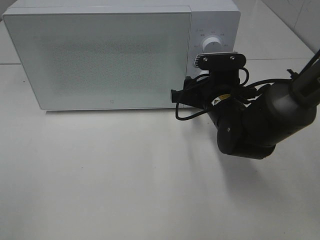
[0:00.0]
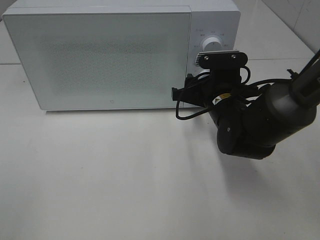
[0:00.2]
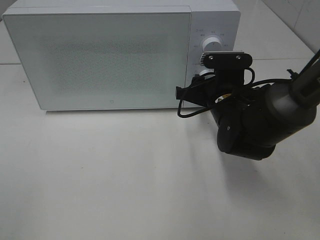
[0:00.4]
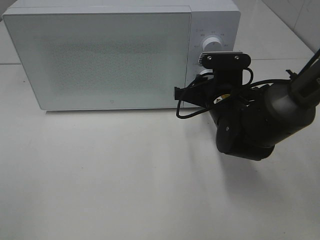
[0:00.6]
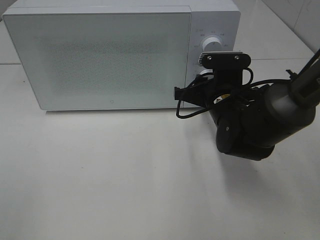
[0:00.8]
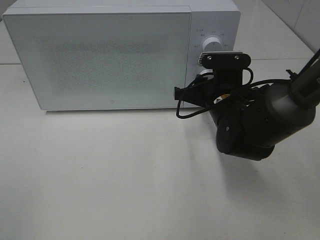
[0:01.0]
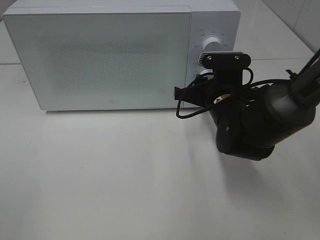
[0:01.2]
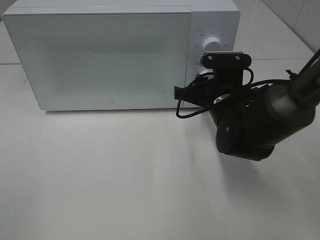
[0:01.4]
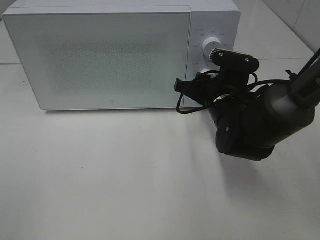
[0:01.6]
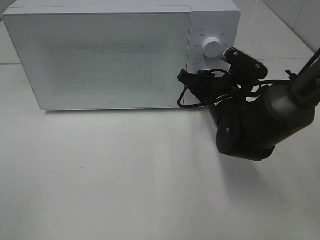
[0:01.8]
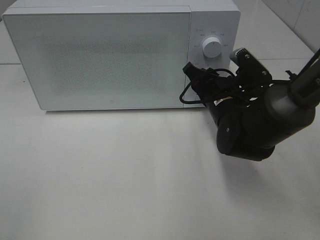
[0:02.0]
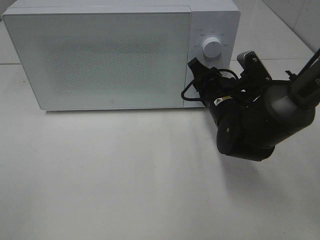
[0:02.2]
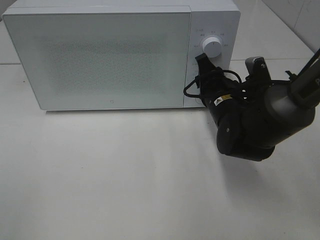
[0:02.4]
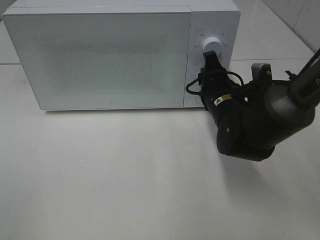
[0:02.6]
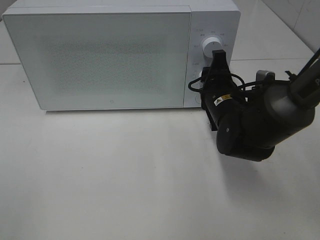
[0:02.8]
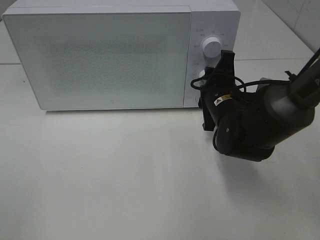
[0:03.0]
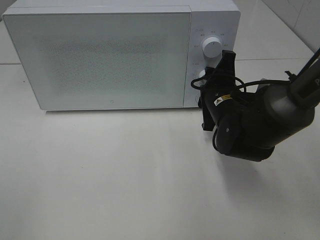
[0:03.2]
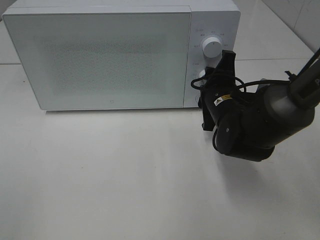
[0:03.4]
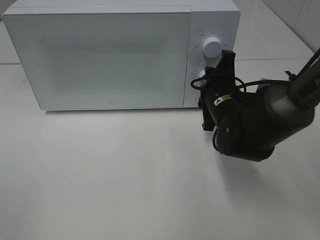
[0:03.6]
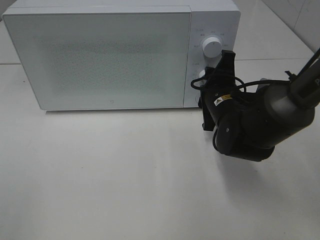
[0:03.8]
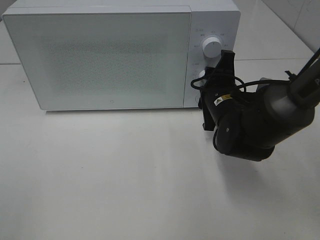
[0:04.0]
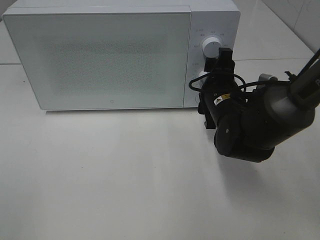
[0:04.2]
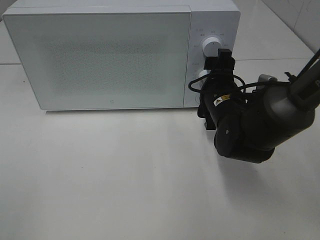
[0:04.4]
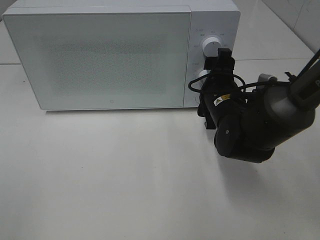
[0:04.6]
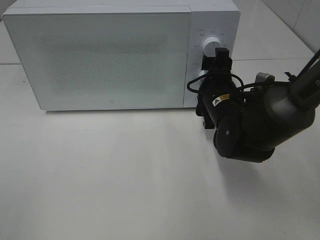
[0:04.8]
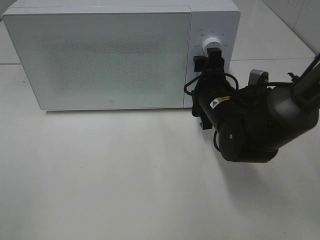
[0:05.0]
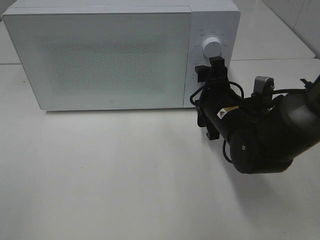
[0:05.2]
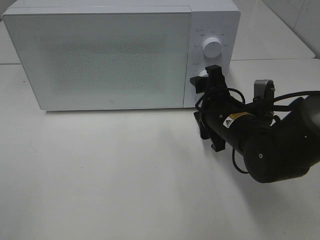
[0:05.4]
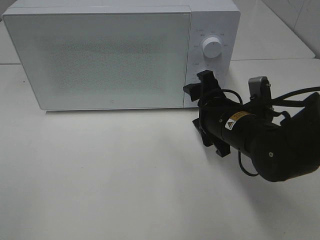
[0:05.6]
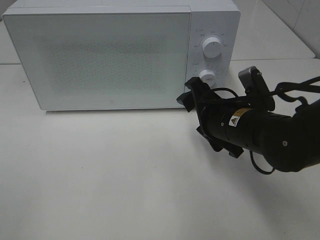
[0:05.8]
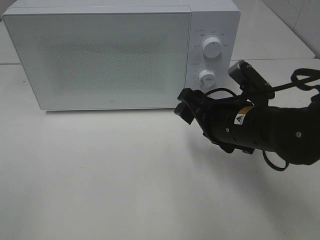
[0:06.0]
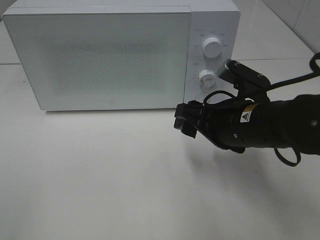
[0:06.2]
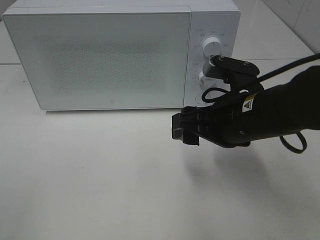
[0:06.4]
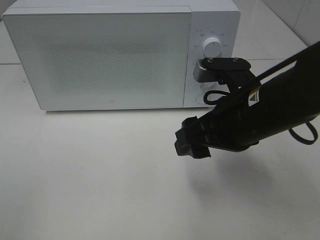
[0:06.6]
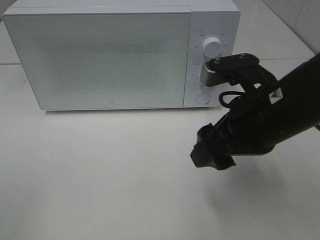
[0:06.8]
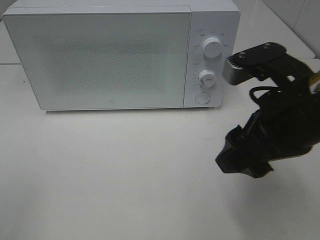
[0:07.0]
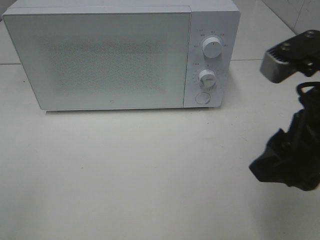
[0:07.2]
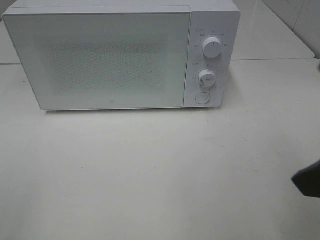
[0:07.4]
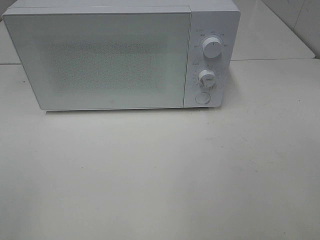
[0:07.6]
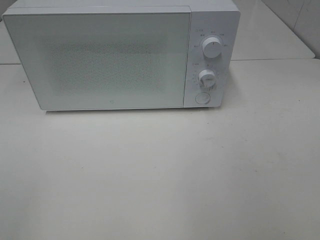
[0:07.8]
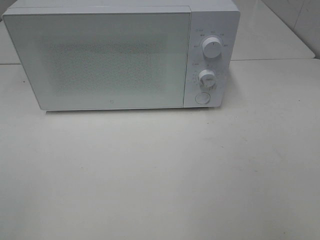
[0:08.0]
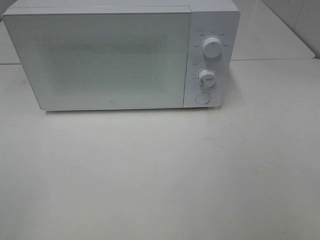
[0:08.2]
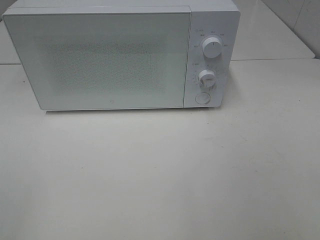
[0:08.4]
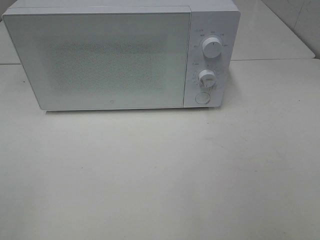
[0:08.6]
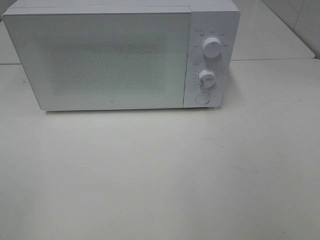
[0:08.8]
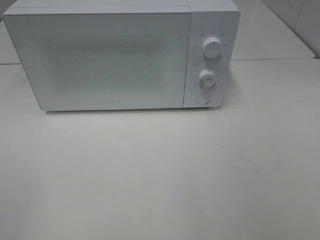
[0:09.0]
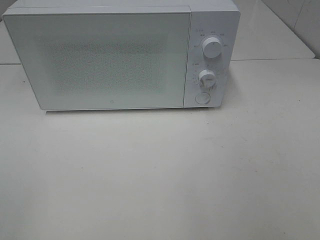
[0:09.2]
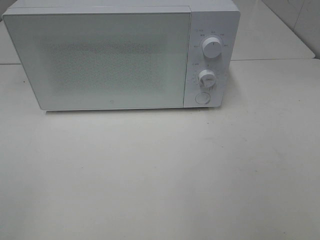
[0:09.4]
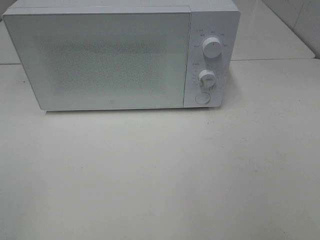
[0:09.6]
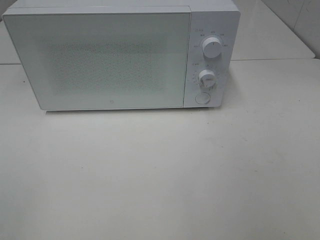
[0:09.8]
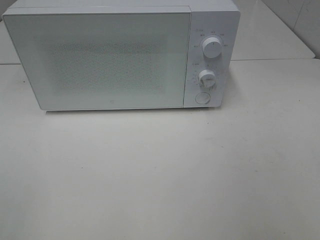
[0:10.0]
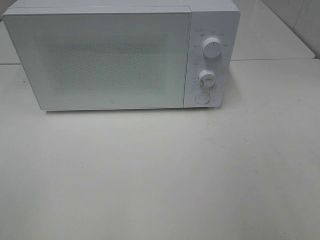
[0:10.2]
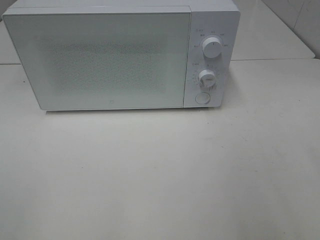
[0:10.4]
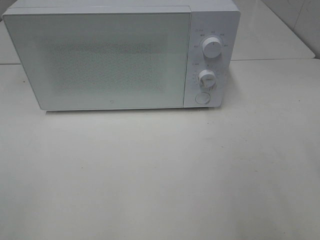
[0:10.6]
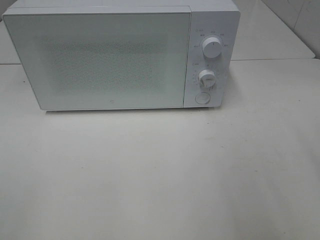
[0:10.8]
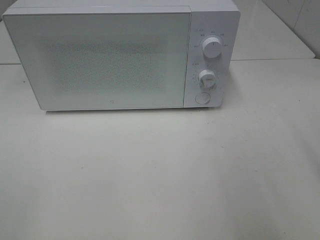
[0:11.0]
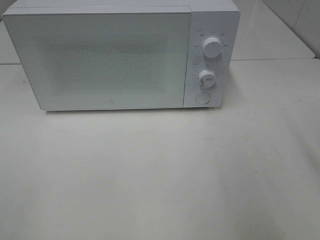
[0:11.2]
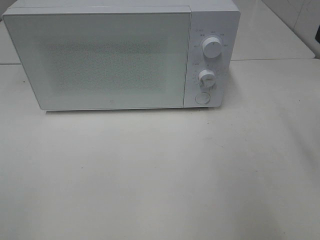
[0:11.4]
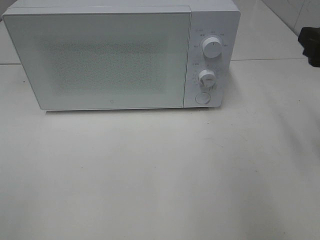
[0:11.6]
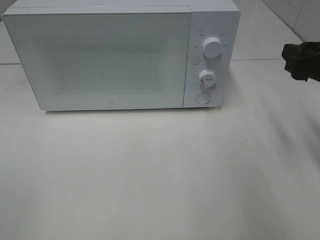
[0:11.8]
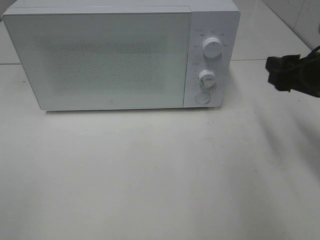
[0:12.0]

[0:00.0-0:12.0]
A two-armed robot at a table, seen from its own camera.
Task of the whole recording: Heat Sandwich.
Step, 0:00.0 to 0:05.0: Right hand: twist timer button.
0:00.0 to 0:01.6: The grippers make only small movements.
0:03.0 to 0:04.4: The right gripper opens its fingers.
0:04.4 to 0:06.0: The right gripper moves backward, roughly 5 cm.
0:06.0 to 0:07.6: The right gripper moves backward, upward and to the right, roughly 25 cm.
0:10.4 to 0:12.0: The right gripper goes roughly 20 cm forward and downward.

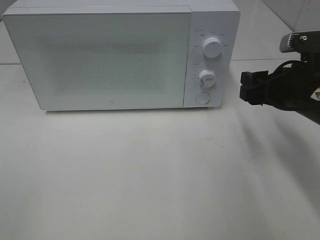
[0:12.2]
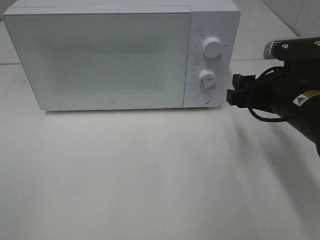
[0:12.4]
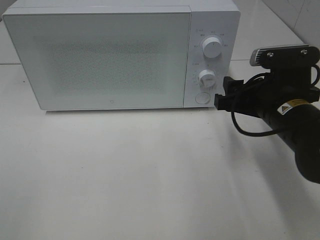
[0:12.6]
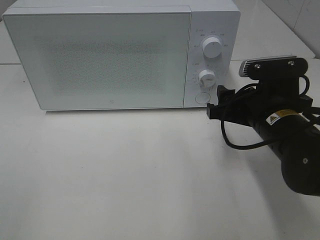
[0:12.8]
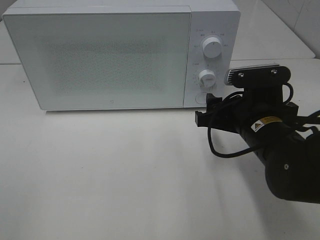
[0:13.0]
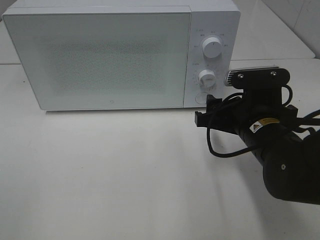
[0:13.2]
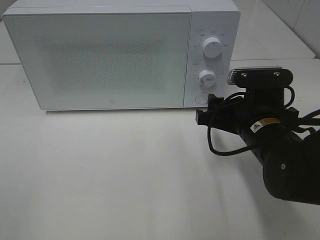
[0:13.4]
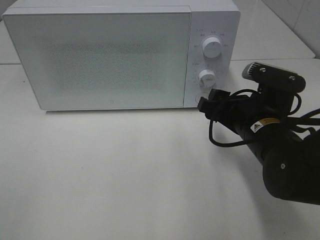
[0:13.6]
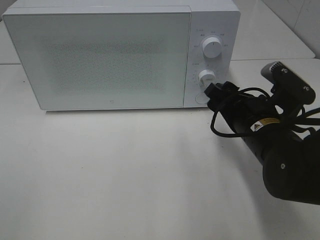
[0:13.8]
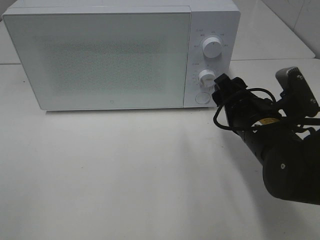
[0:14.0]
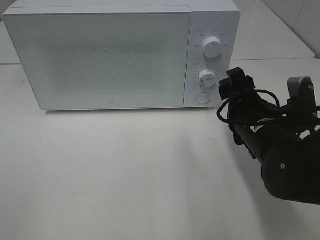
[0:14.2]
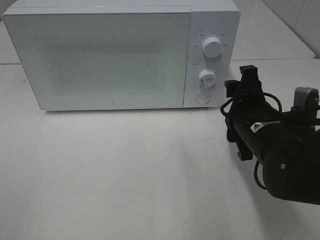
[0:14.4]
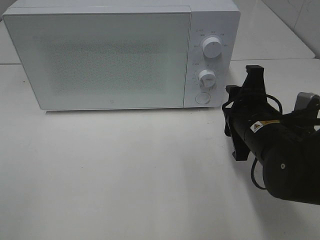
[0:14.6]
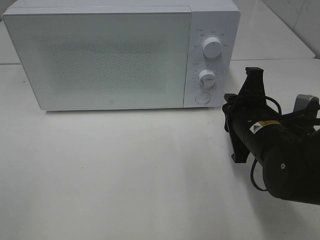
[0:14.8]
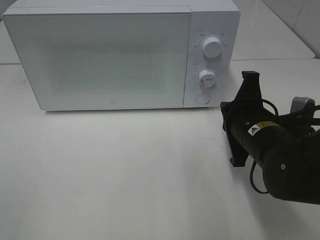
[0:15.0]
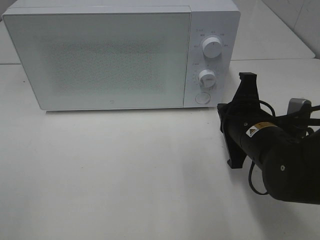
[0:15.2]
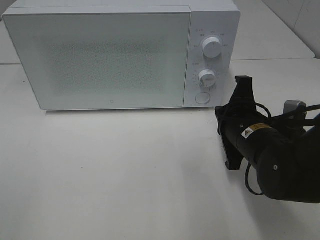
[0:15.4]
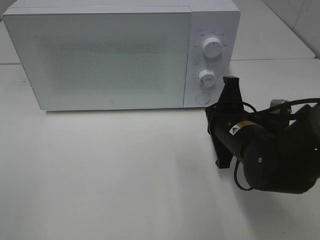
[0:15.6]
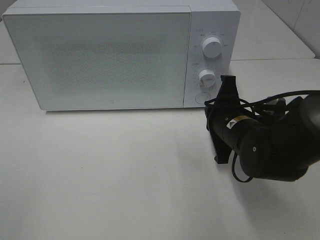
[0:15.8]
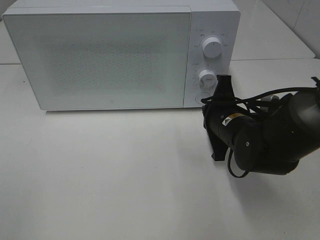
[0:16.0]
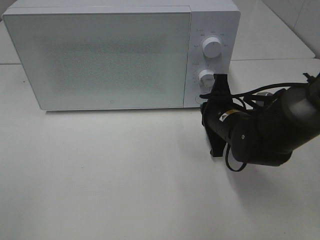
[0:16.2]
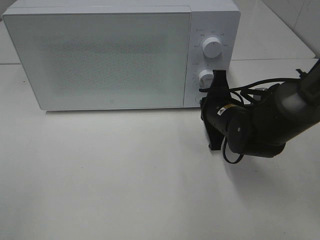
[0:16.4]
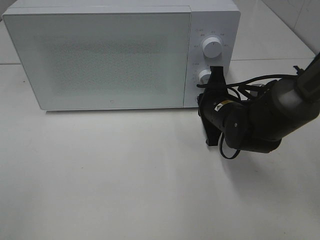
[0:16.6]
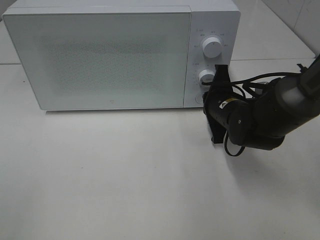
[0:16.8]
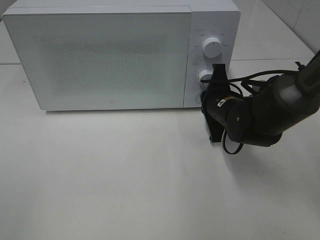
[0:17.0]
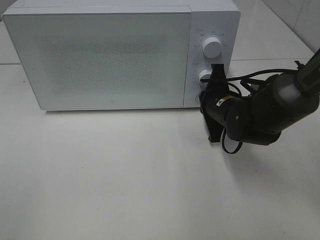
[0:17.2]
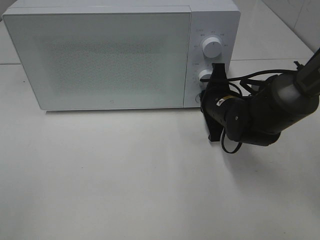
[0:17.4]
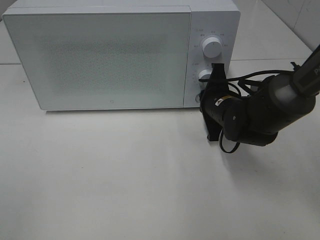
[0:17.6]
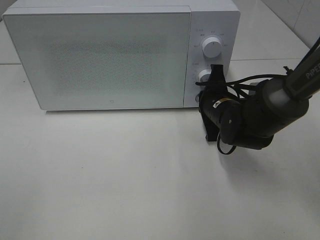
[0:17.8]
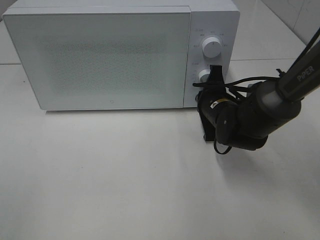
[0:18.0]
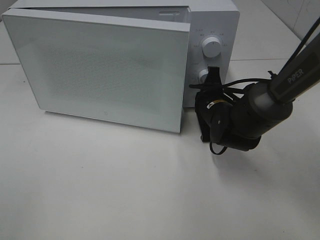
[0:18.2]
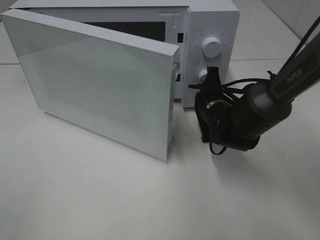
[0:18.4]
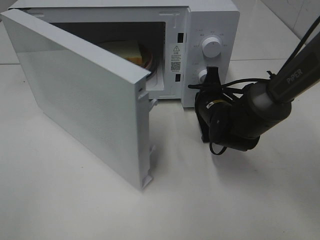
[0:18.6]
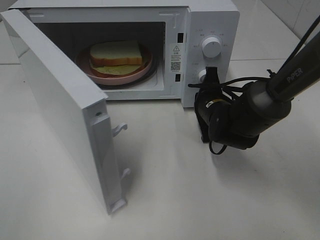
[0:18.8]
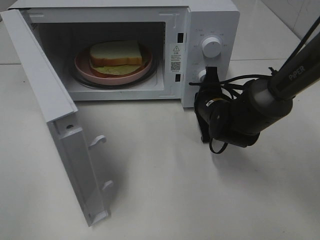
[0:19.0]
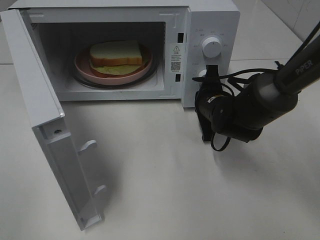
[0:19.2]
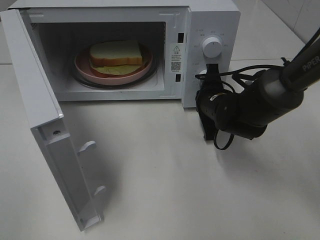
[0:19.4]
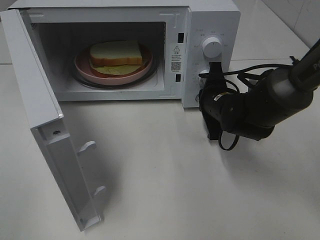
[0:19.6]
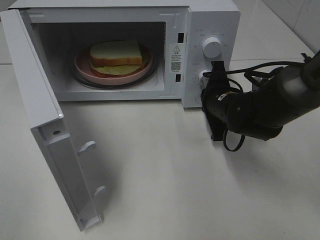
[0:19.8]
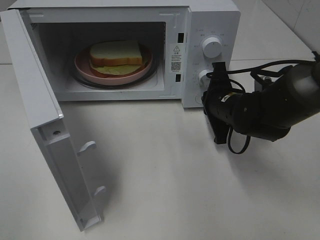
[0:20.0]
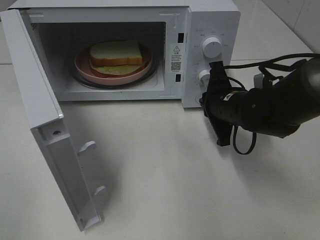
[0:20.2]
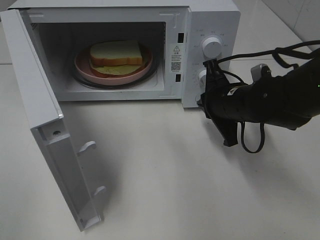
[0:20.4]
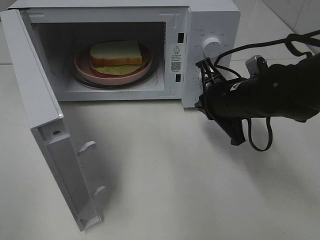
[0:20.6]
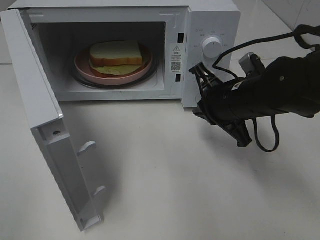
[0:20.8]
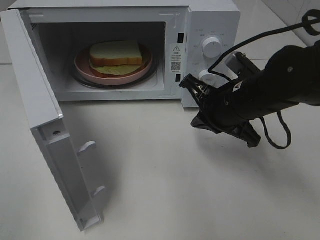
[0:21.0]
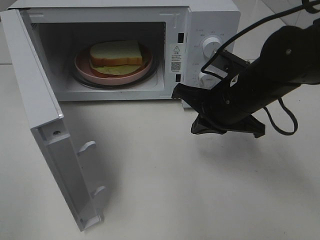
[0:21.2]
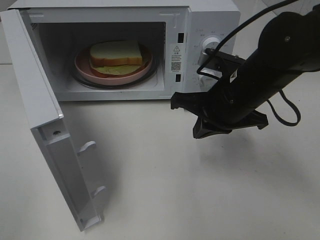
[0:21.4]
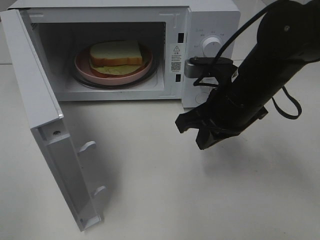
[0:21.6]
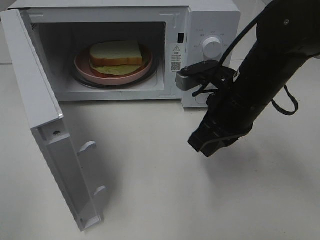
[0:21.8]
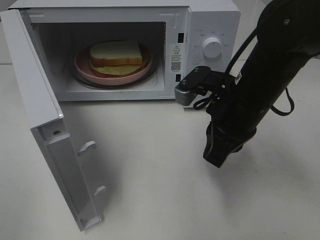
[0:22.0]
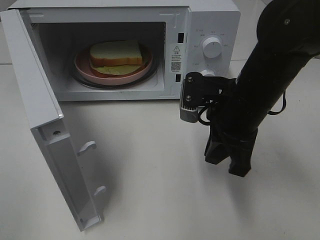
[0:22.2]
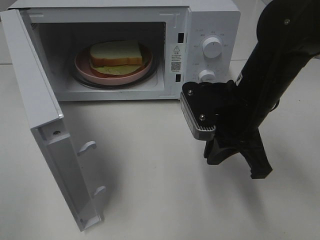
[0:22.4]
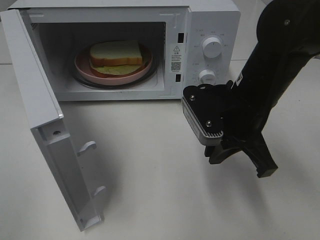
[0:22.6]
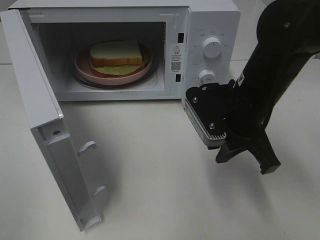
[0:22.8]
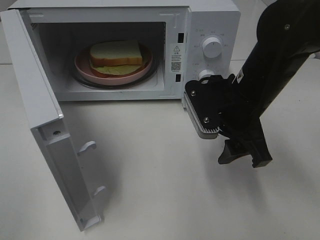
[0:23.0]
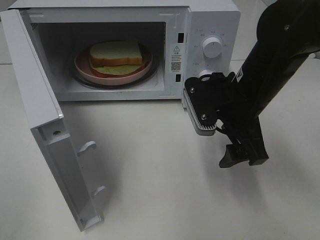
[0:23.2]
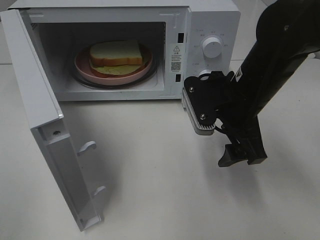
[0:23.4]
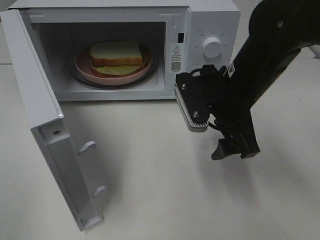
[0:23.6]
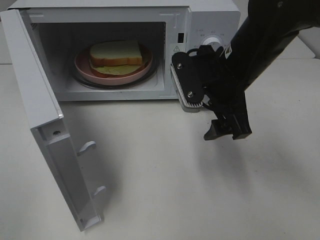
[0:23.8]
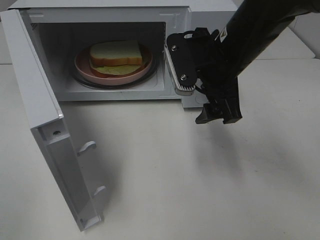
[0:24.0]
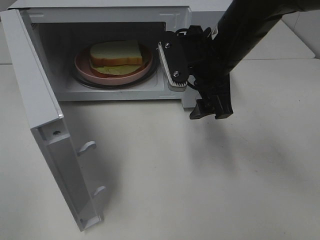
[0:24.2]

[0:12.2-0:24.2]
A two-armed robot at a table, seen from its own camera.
Task of the whole recording: Heat Sandwich.
Step, 0:12.2 to 0:20.0: Right hand: press the switch.
0:12.2 to 0:13.8: The right gripper travels to the left by some 5 cm.
0:13.8 to 0:15.2: The right gripper closes.
0:15.2 to 0:16.6: The right gripper goes about 10 cm forward.
0:16.6 to 0:18.2: The grippers stay close to where they were, moving slightly.
0:19.8 to 0:21.2: The right gripper travels upward and backward by about 10 cm.
0:22.6 to 0:24.2: The right gripper travels forward by about 5 cm, and opens its fingers.
